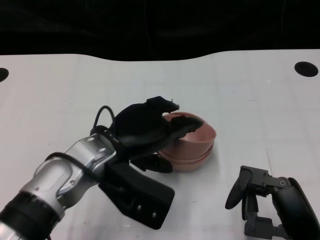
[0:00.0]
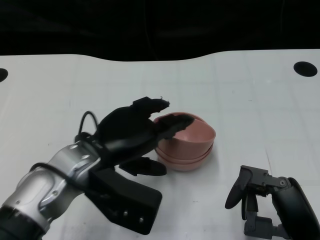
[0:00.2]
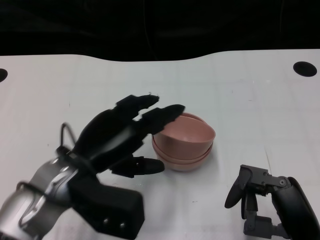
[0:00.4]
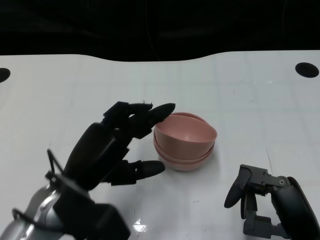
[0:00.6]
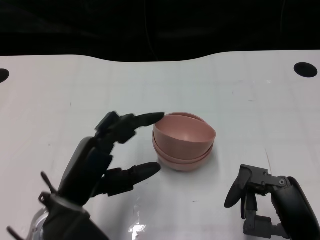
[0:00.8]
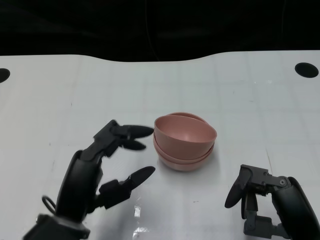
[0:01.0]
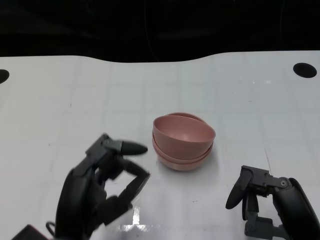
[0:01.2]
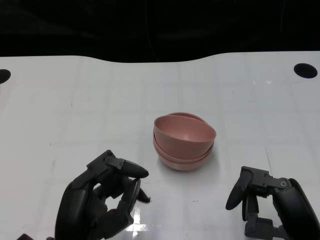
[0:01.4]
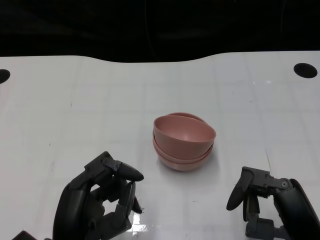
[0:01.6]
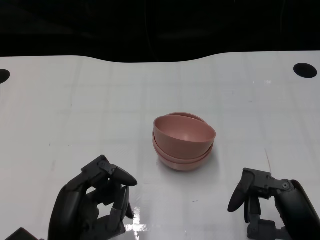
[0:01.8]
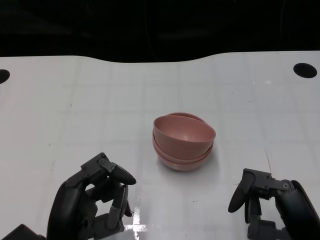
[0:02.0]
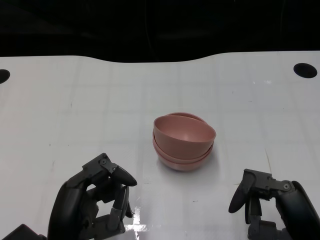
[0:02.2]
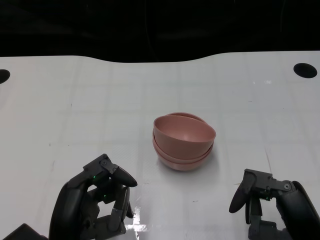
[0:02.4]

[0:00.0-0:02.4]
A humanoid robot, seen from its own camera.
Task of the whole recording: Pick up the bowl on one side of the table and place it on top of the middle bowl, then pick up the bowl on the other side of the table and place it on top of the middle bowls.
0:00.0 to 0:01.2: The left hand heads backward, covering about 10 cm.
0:01.2 to 0:02.4: The hands make only small movements.

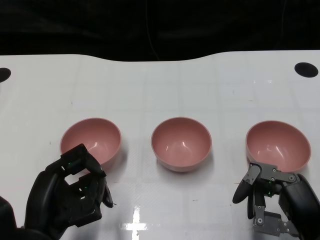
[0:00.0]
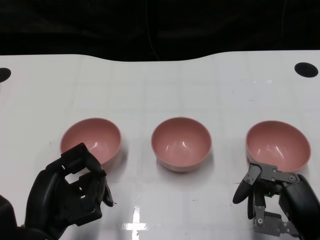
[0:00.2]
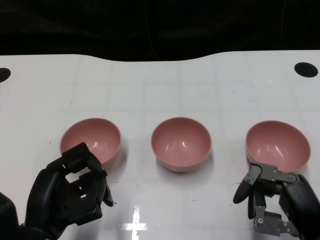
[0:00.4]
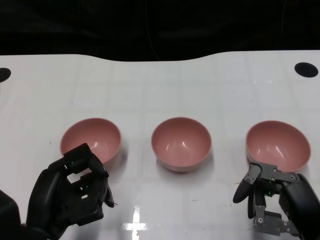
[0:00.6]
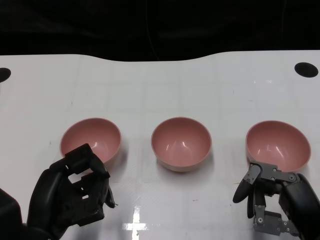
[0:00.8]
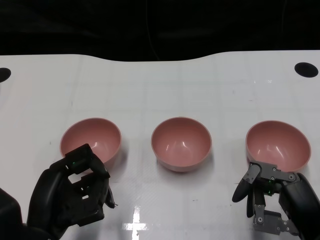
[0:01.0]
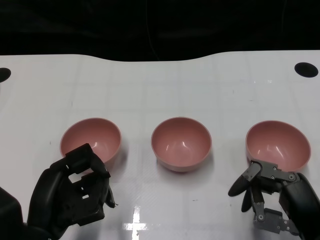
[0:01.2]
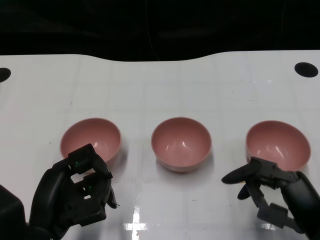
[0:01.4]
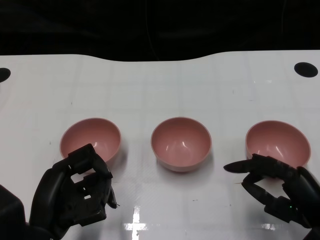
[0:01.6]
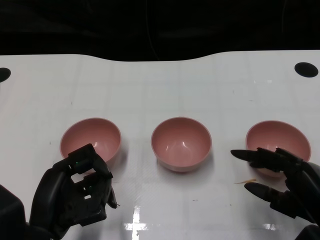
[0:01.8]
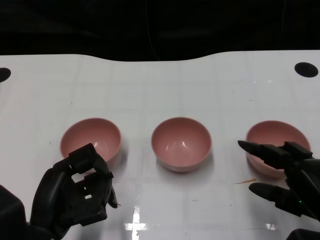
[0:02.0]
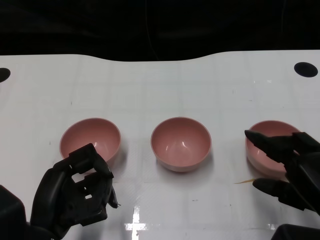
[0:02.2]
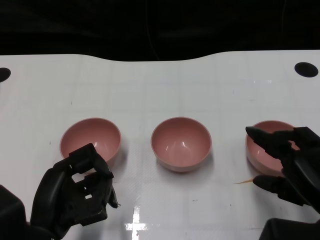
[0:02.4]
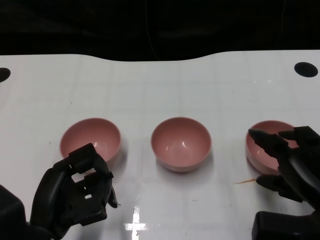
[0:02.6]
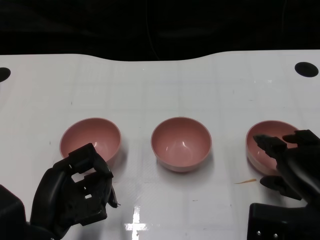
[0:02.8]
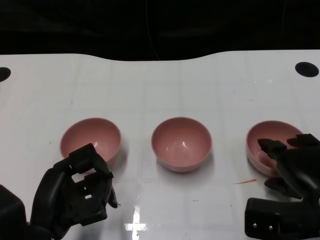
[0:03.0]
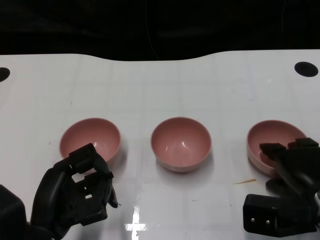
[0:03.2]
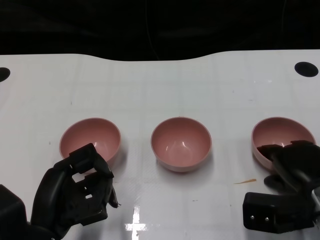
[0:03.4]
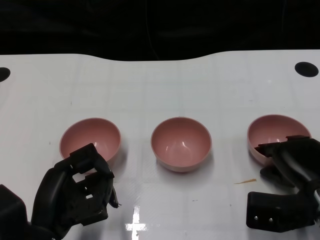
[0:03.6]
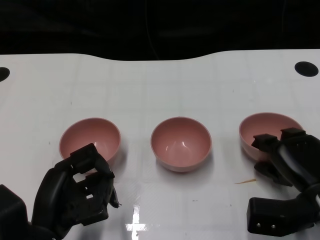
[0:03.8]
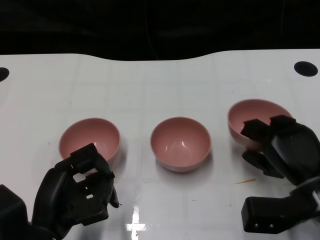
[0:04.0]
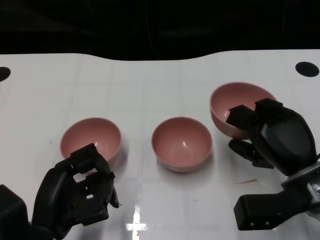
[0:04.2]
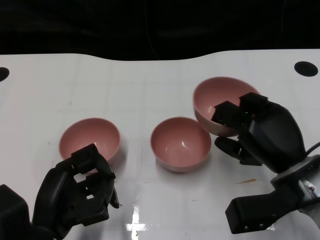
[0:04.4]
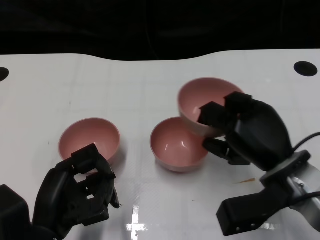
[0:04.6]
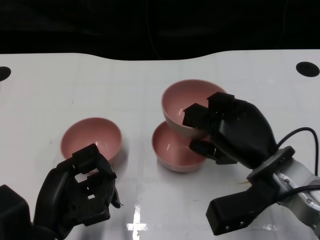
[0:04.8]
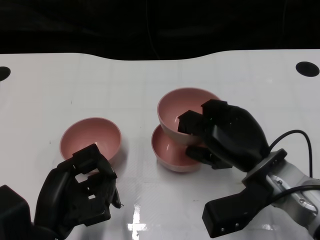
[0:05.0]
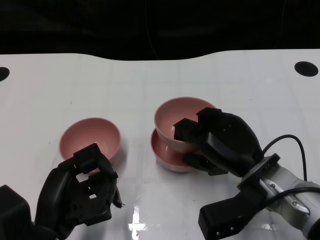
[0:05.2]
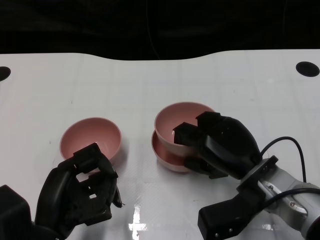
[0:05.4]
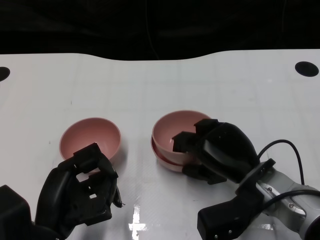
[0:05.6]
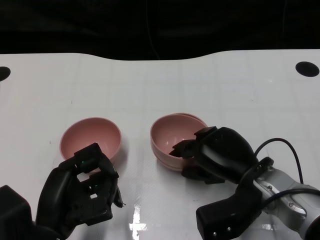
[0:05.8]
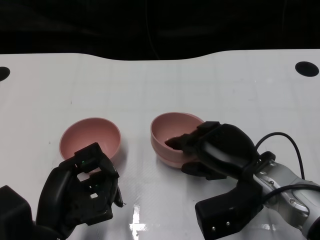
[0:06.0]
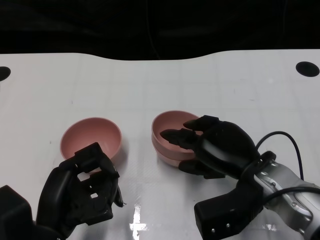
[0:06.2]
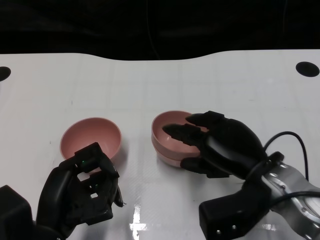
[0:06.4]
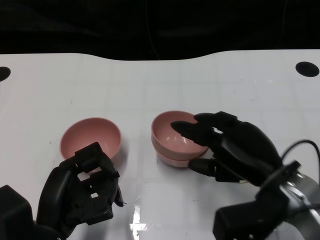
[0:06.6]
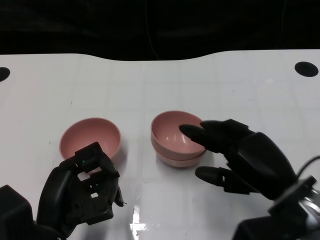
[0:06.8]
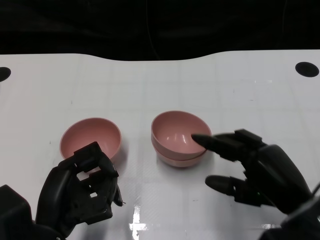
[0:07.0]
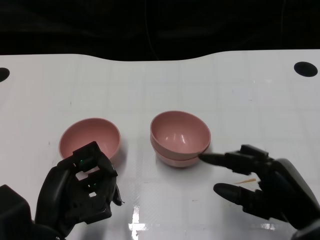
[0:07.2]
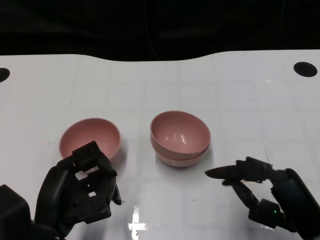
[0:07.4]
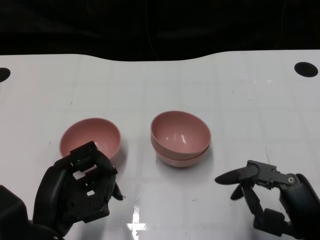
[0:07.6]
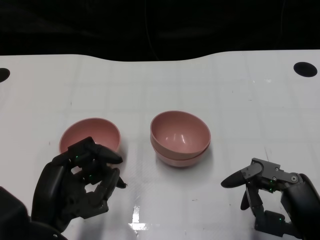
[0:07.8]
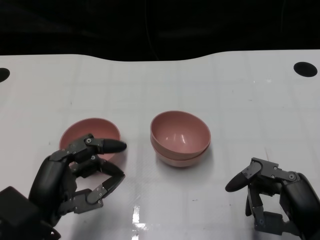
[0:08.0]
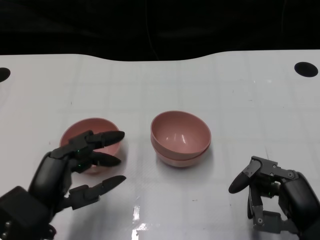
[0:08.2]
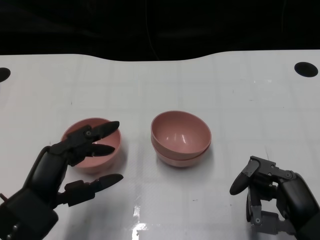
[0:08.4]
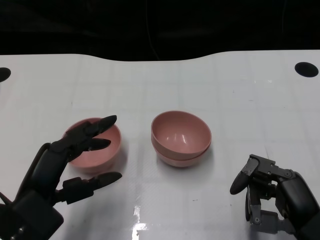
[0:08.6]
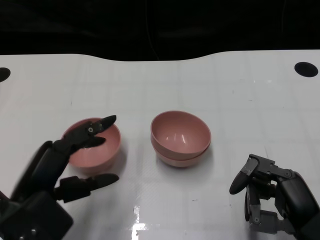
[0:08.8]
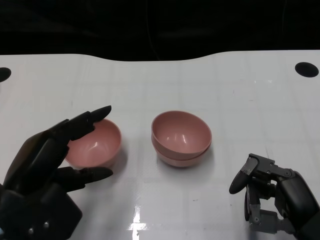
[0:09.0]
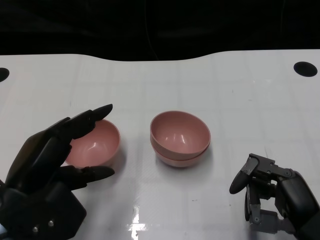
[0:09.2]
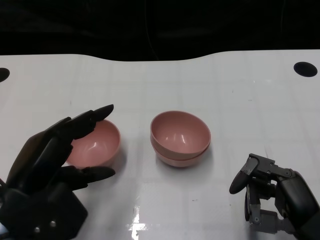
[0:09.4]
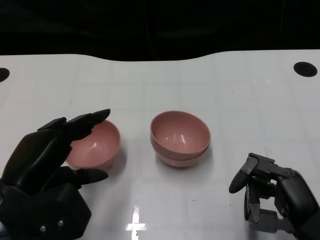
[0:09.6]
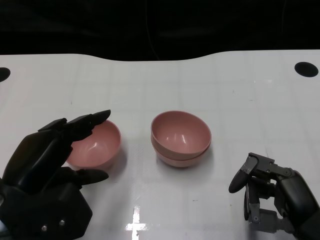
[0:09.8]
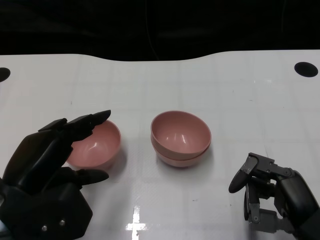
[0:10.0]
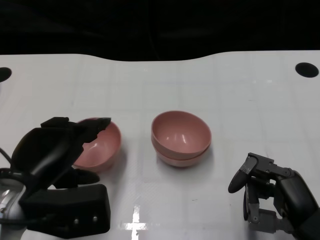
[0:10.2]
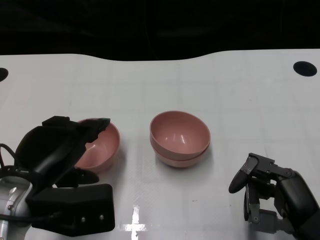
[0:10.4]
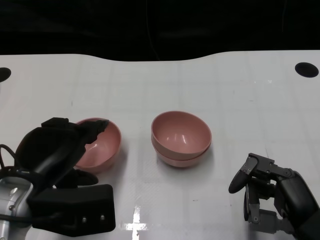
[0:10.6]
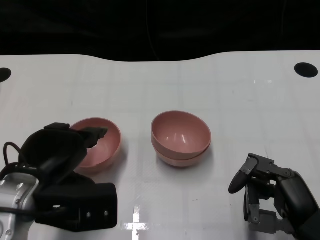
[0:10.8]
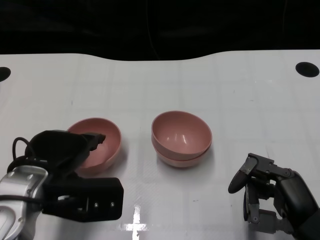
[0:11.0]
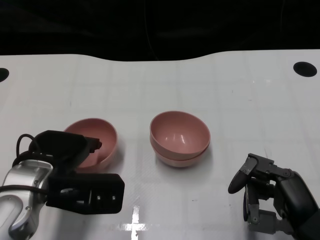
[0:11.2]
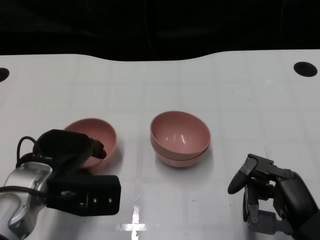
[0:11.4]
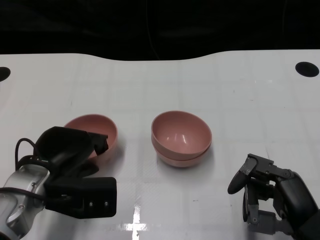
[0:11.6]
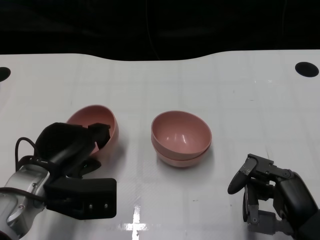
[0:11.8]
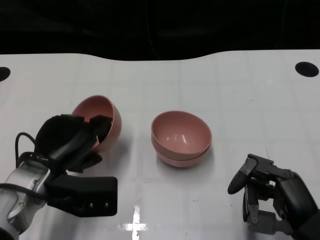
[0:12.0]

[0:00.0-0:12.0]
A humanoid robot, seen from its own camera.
Task of the whole recording: Pick up the bowl on one side of the table and place it on top of the middle bowl, then pick up the bowl on the other side of the table and place it on top of the middle bowls.
Step, 0:01.2 to 0:03.6: Grasp the bowl on the right with the right gripper.
Step, 0:04.0 to 0:06.6: Place the bowl on the right onto the bowl in the middle with right gripper.
Step, 0:07.0 to 0:11.6: Grasp the bowl on the left with the left gripper.
0:01.6 to 0:03.0: The right hand is displaced forward by approximately 5 cm.
0:03.0 to 0:04.4: The right hand shifts by roughly 5 cm.
0:04.4 to 0:06.0: The right hand moves some 5 cm.
0:06.0 to 0:07.6: The right hand travels backward and to the right by approximately 15 cm.
0:07.6 to 0:09.0: The left hand heads upward, covering about 5 cm.
0:10.4 to 0:12.0: The left hand ends up about 5 cm from where it was.

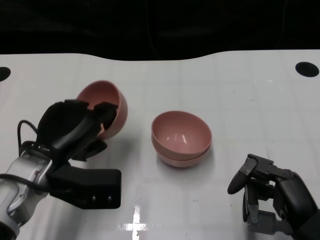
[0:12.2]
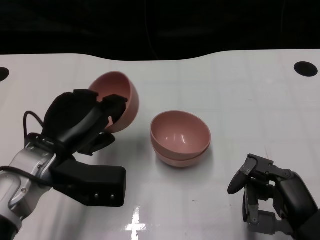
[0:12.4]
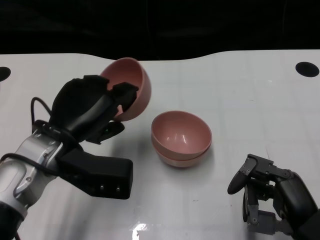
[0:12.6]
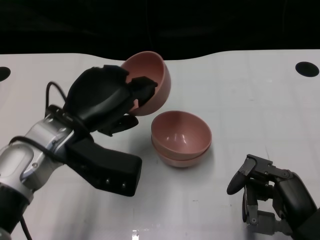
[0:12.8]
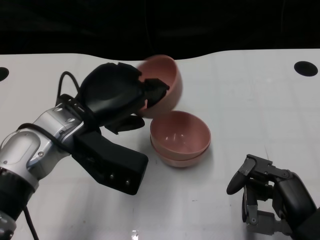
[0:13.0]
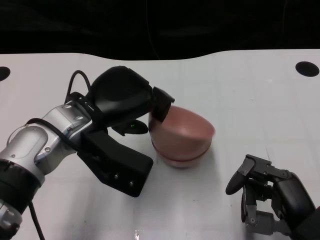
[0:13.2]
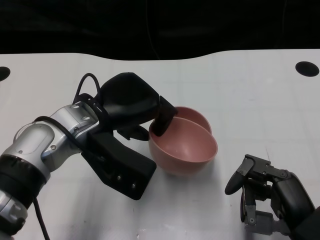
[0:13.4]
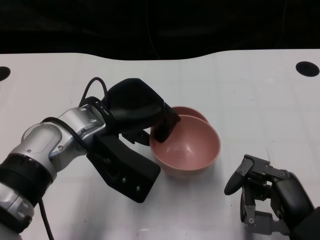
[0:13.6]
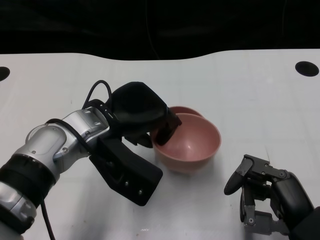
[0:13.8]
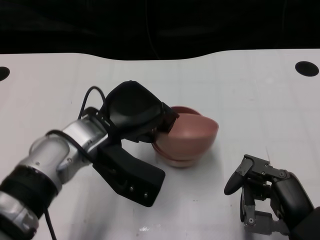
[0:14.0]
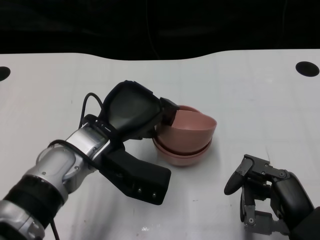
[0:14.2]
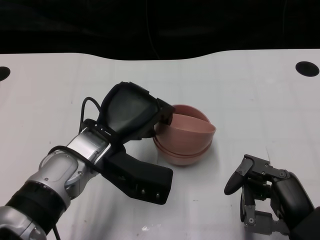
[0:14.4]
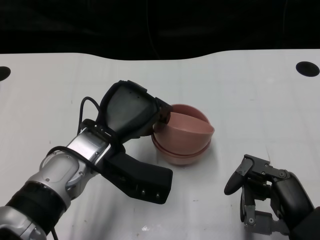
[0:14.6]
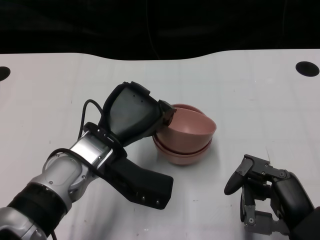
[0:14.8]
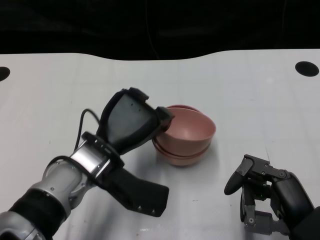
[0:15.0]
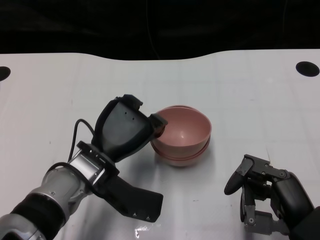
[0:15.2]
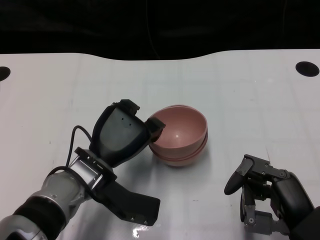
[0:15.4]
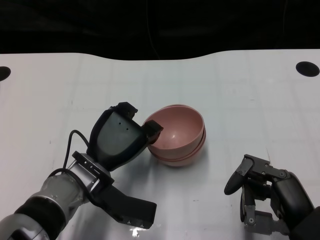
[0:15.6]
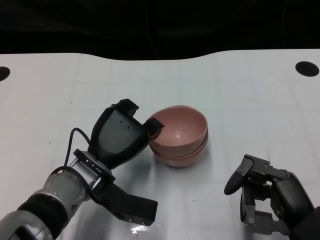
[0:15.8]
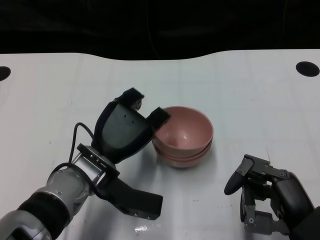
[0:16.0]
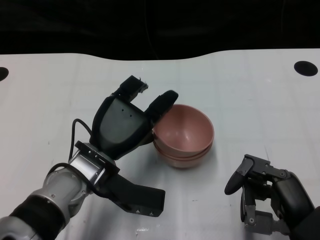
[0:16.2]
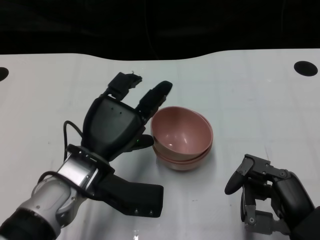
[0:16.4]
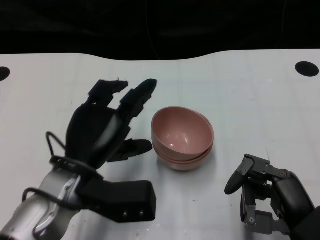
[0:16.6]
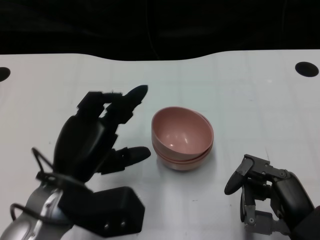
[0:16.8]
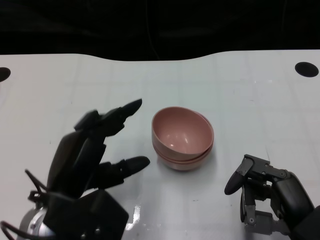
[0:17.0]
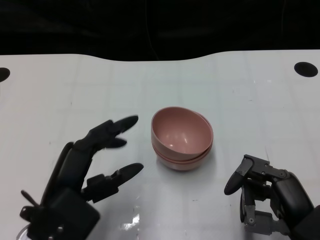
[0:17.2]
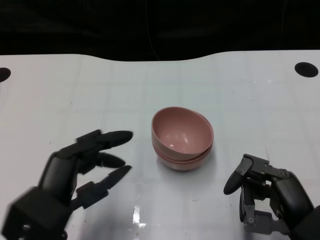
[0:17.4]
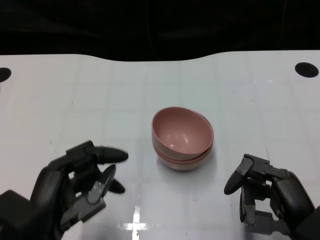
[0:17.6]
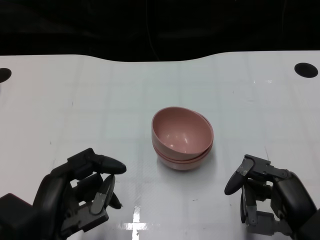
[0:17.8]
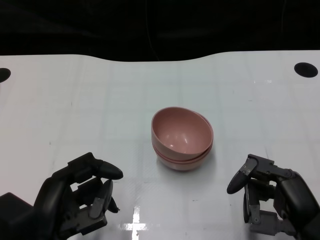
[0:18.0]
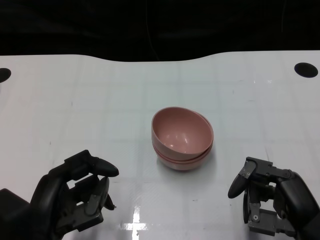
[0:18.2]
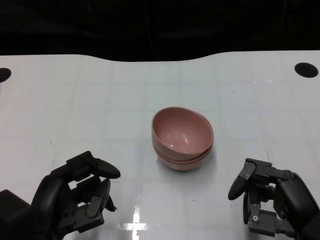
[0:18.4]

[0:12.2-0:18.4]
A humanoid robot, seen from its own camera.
Task of the whole recording: Pick up the bowl on one side of the table and place it on top of the middle bowl, then pick up the bowl on the other side of the table and place it on top of the middle bowls.
Step, 0:12.2 to 0:16.6: Place the bowl on the left onto the bowl in the middle with left gripper.
0:12.2 to 0:13.8: The left hand travels to the right by approximately 10 cm.
0:13.8 to 0:15.4: The left hand travels downward by about 10 cm.
0:15.4 to 0:16.8: The left hand travels backward by approximately 5 cm.
0:16.8 to 0:18.4: The left hand travels backward by some 5 cm.
